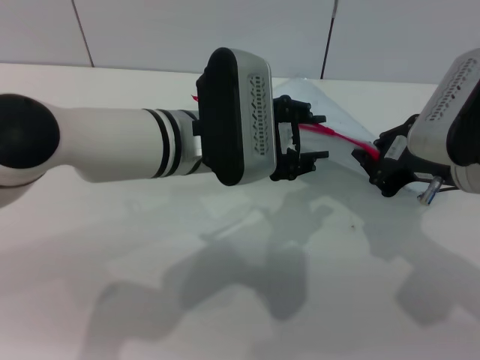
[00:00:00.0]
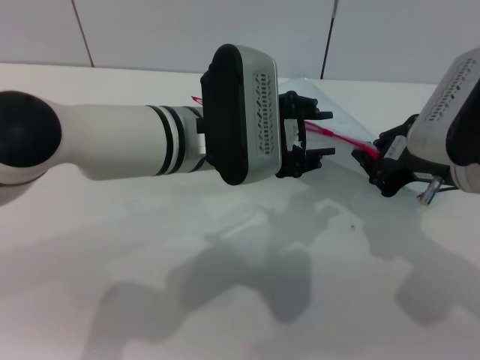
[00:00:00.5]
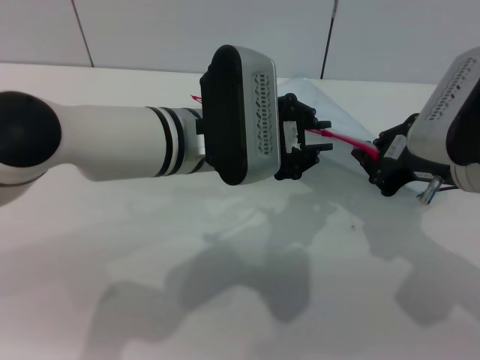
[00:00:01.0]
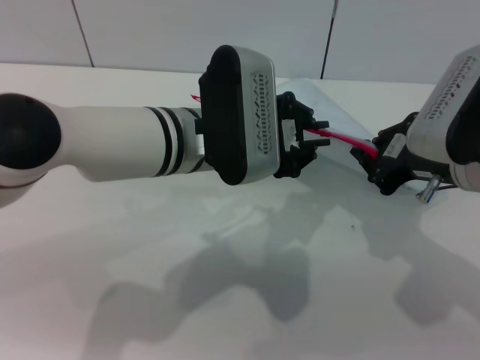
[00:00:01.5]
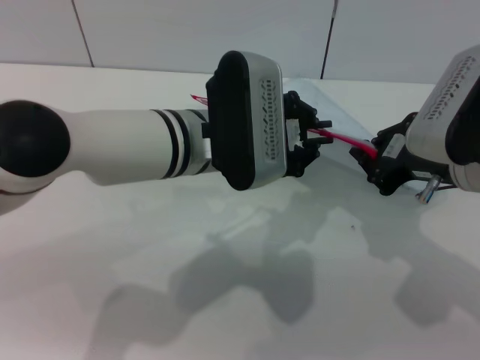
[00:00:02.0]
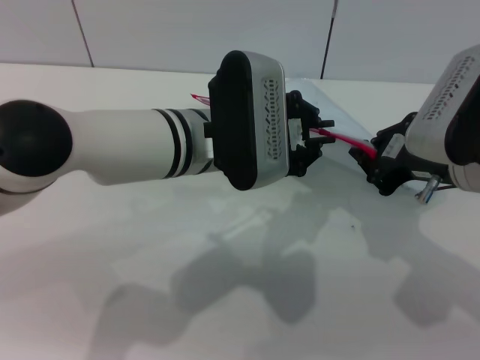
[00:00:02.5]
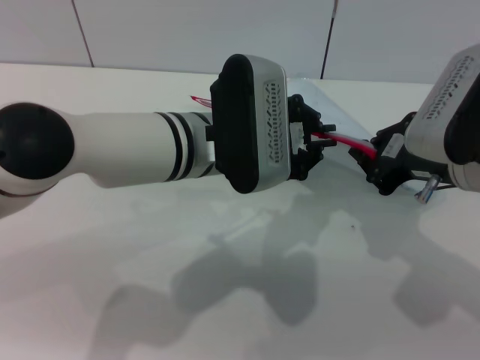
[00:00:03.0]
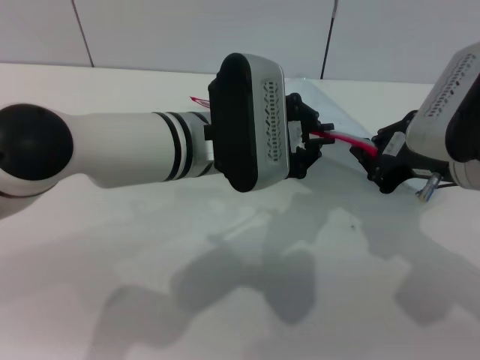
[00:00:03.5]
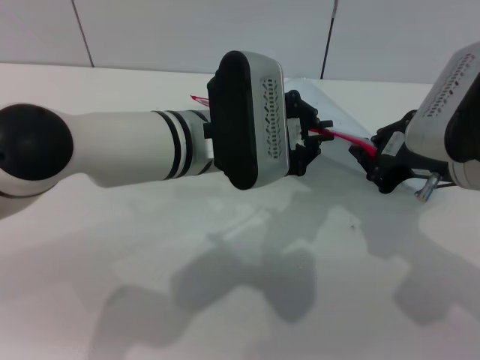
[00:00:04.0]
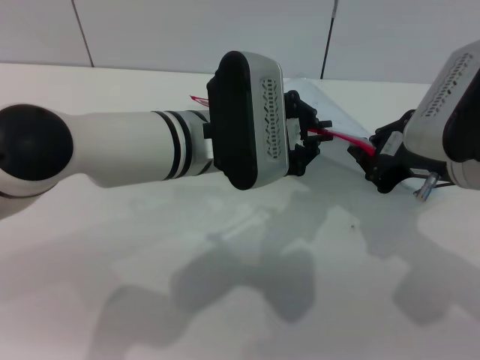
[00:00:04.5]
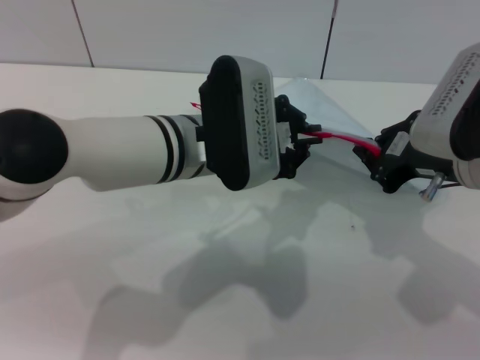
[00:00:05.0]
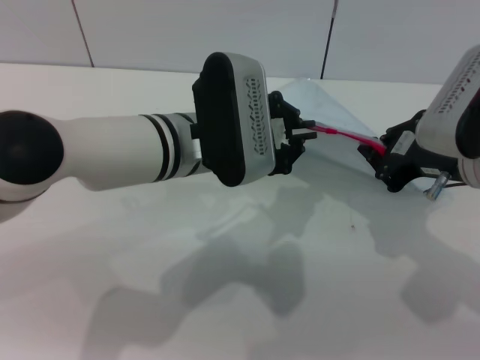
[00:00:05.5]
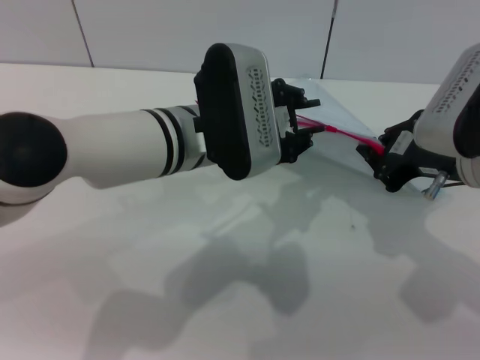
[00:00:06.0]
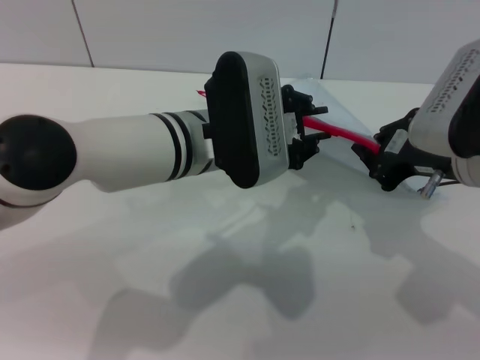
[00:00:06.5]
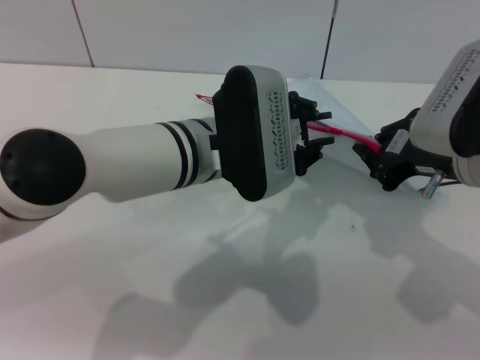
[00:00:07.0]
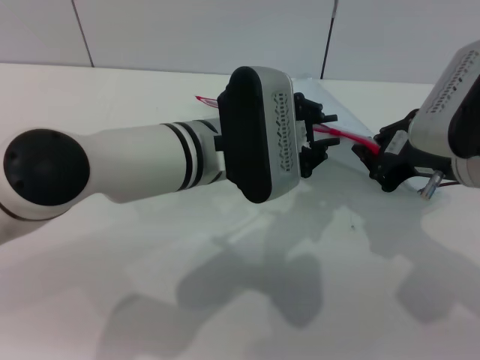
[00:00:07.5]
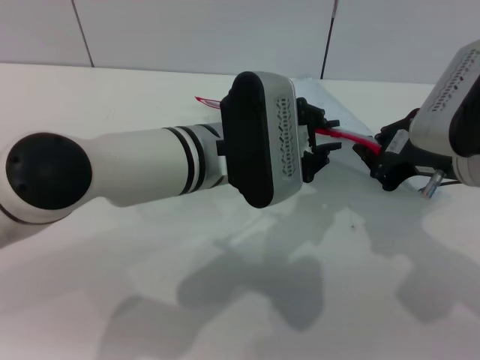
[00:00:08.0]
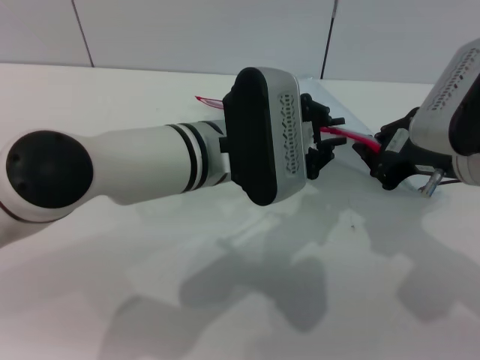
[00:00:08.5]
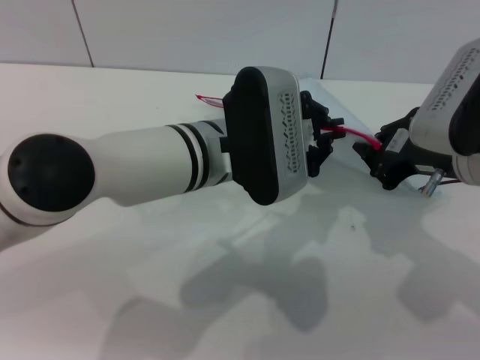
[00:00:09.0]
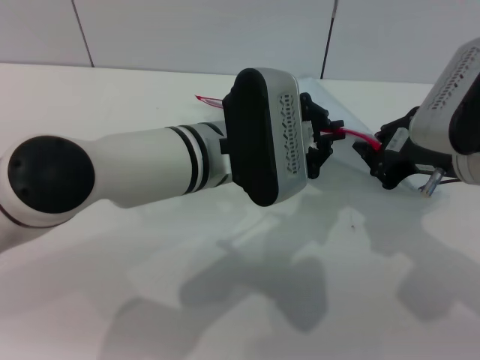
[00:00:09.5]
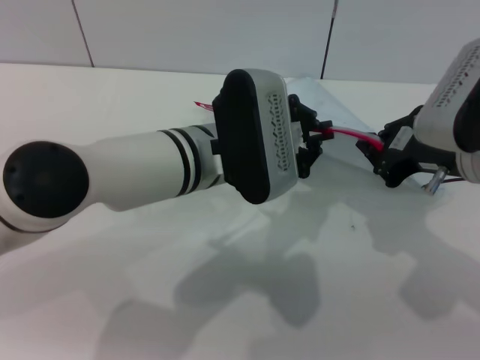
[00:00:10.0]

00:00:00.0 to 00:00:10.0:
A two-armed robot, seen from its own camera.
00:00:00.0 to 00:00:02.0: The left gripper closes.
00:00:02.0 to 00:00:04.0: Neither gripper changes place.
00:00:04.0 to 00:00:08.0: The grippers move only a little.
00:00:08.0 to 00:00:10.0: Neither gripper changes place.

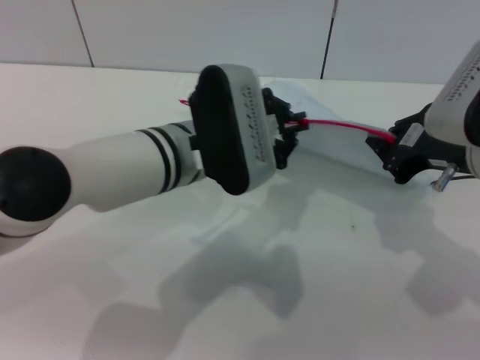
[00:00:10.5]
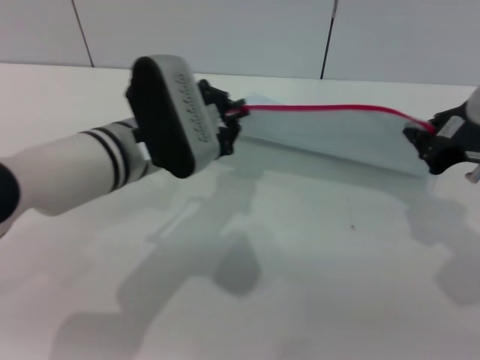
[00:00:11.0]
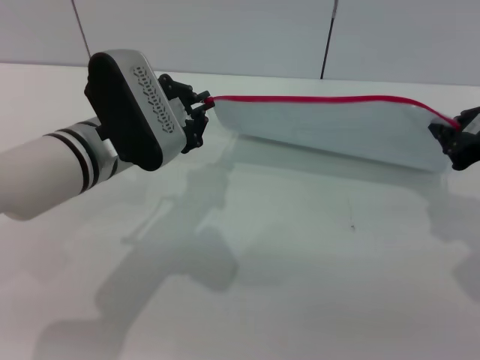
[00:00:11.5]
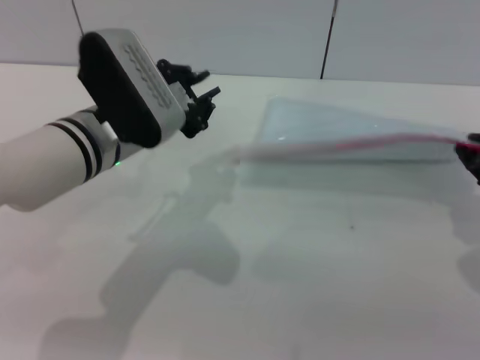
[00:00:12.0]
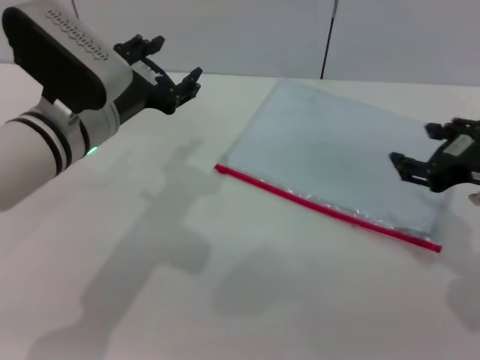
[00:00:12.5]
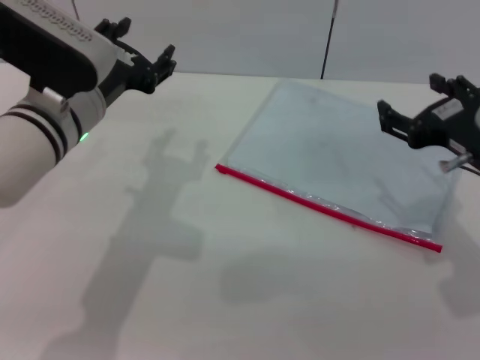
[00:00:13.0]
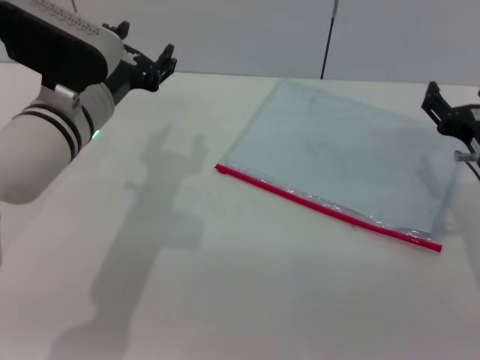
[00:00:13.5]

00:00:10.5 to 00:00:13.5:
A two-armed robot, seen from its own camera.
00:00:10.5 to 00:00:12.0: The left gripper heads to the left, covering roughly 5 cm. Meanwhile the right gripper goes about 5 cm to the right.
00:00:12.0 to 00:00:13.5: The right gripper goes some 10 cm downward, and opens. Meanwhile the left gripper opens.
